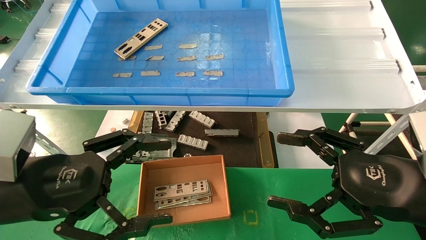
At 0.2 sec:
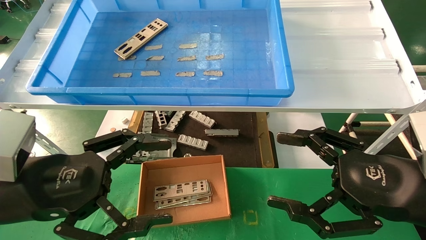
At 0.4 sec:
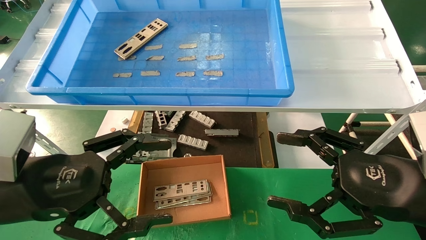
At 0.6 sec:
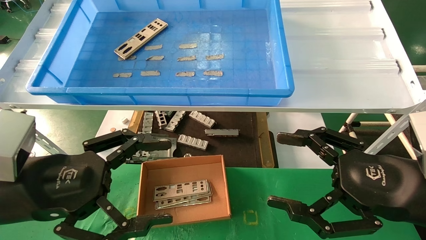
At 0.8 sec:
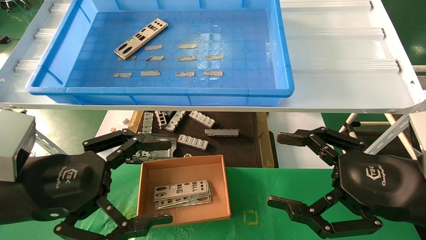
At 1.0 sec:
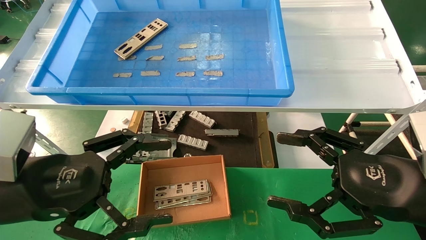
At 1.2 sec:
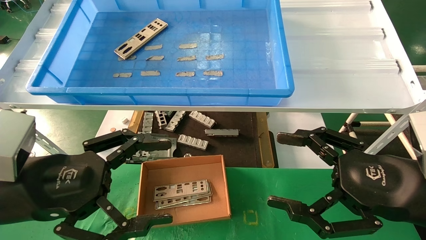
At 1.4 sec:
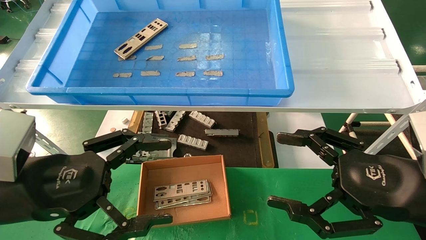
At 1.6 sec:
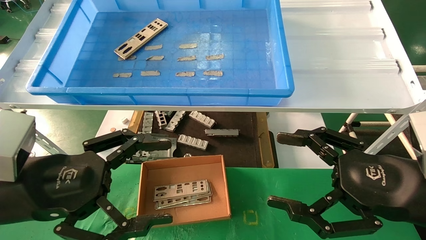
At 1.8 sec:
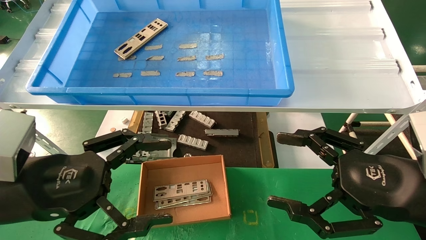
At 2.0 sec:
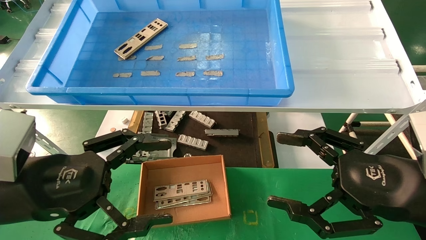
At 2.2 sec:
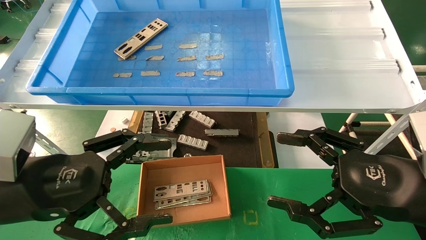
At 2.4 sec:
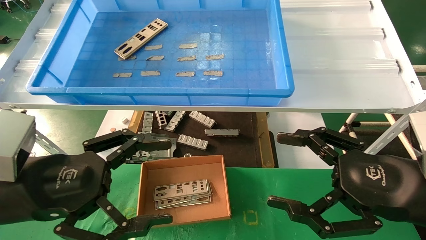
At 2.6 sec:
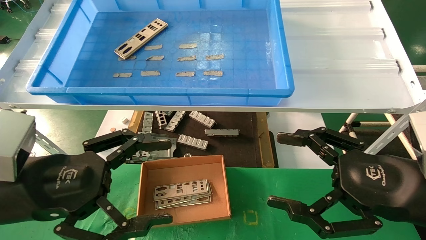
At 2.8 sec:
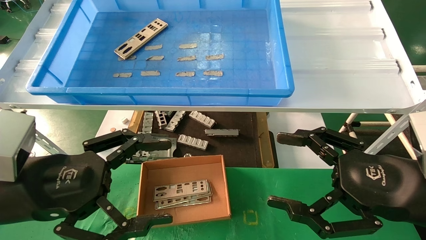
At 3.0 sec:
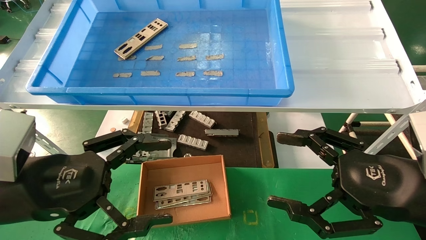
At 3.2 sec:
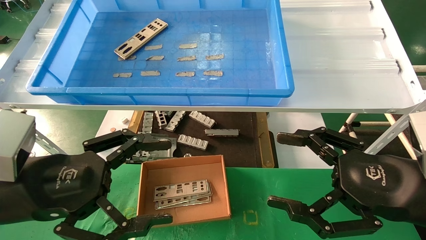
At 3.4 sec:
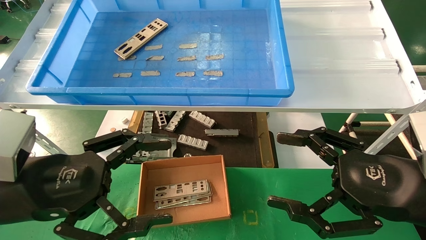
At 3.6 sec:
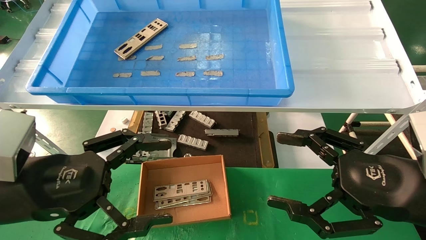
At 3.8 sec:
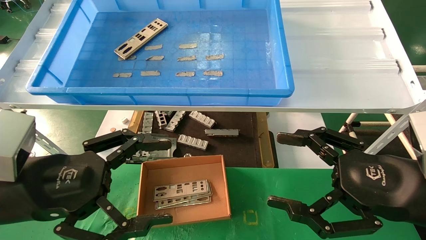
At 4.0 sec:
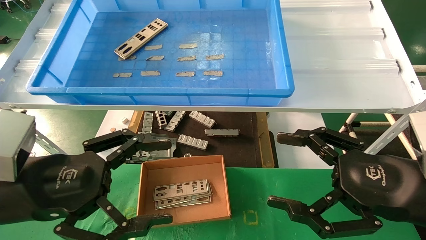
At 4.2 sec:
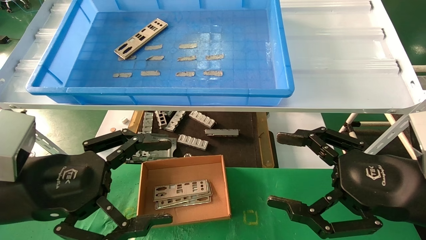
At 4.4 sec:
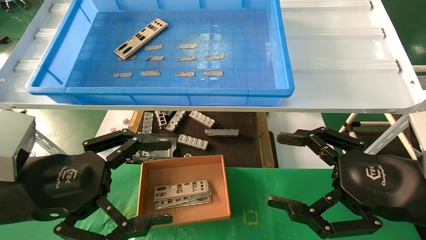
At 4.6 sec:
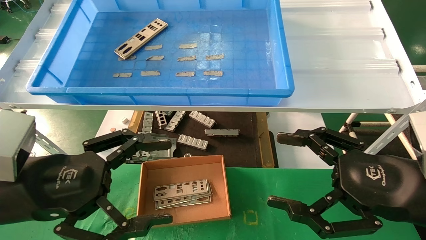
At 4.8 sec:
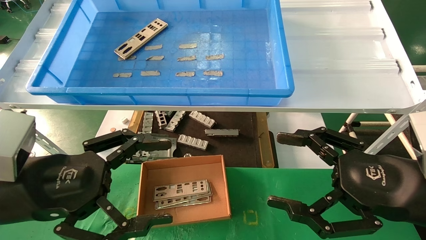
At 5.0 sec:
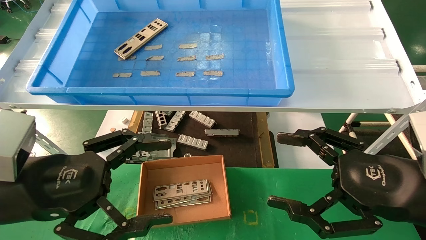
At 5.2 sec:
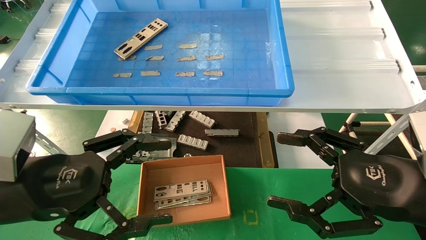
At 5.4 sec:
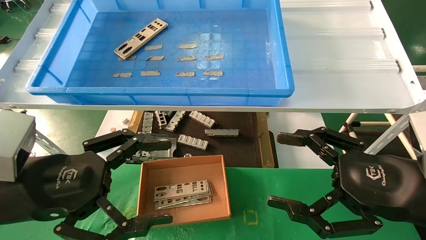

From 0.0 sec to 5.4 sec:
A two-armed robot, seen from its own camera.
Task of the whole recording: pick up the parts on the tray and put them in the cardboard box.
From 0.0 sec to 5.4 sec: Both grippers stay put.
